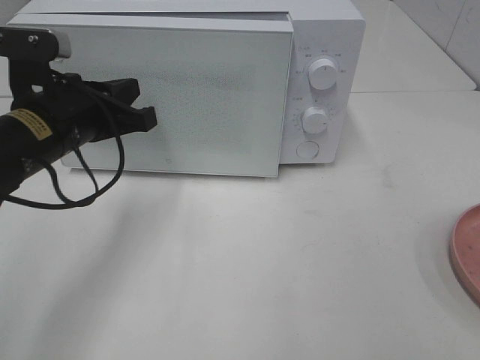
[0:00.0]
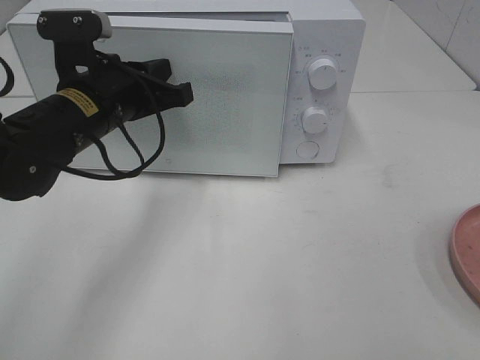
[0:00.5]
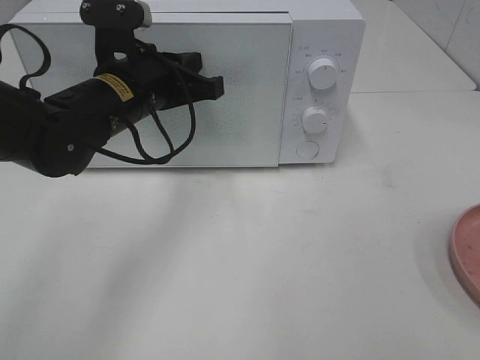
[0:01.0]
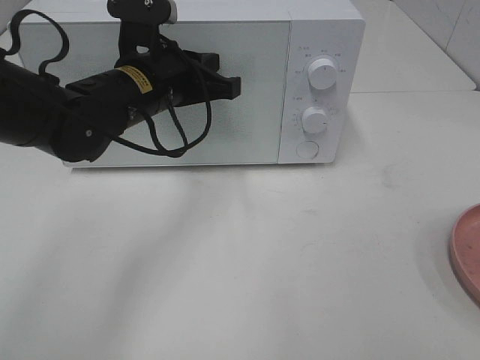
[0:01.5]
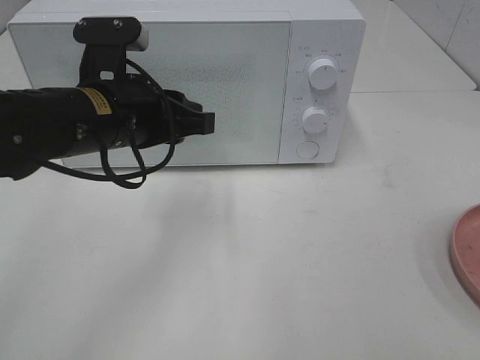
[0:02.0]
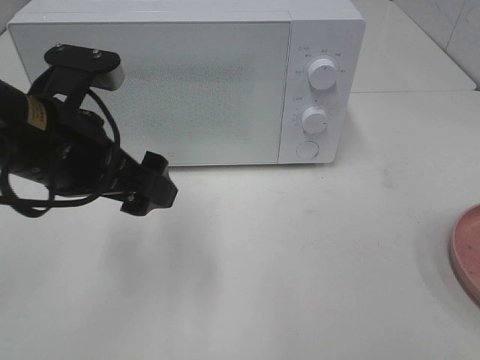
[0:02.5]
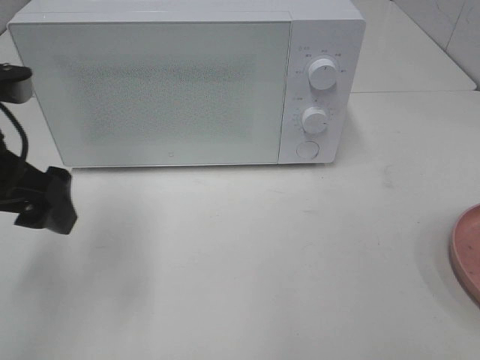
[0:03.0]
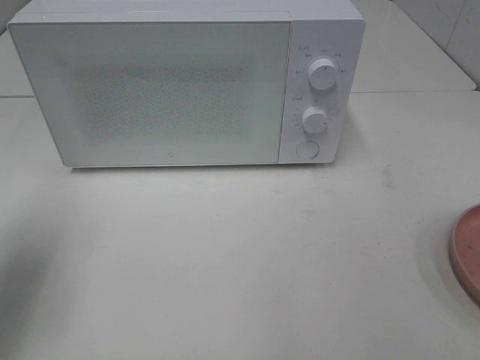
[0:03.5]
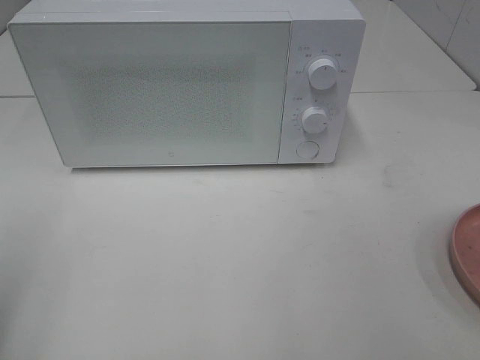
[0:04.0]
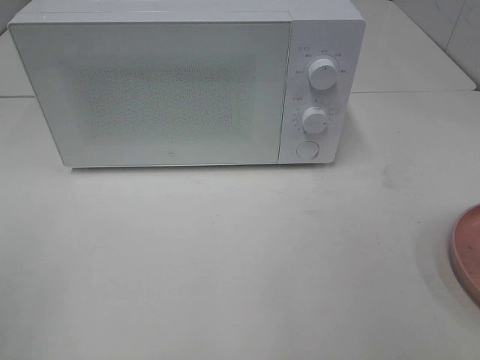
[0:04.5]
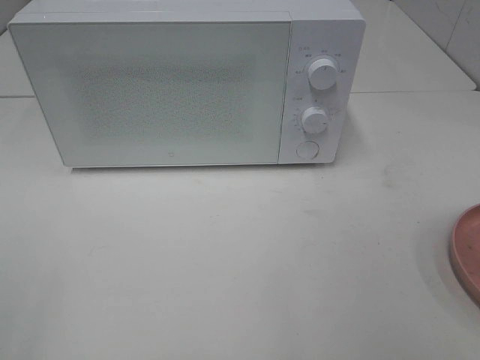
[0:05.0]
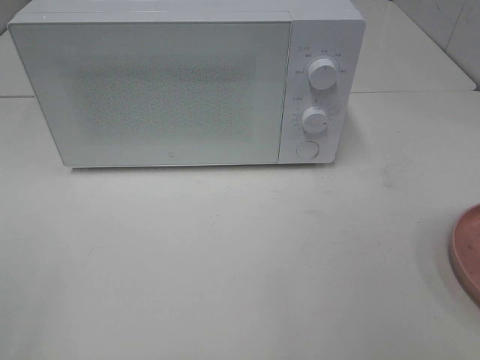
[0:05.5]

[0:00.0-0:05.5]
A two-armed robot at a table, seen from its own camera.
Task of the whole recording: Heat the burger.
Step, 0:00.0 to 0:02.0: Left hand: close the microwave door.
0:00.0 to 0:02.0: The left gripper travels to the right by about 5 cm, and opens.
0:02.0 to 0:03.5: The left gripper heads to the left and backward, covering roughly 20 cm, and opens.
0:03.5 to 0:05.5: The left gripper heads backward, covering approximately 20 cm.

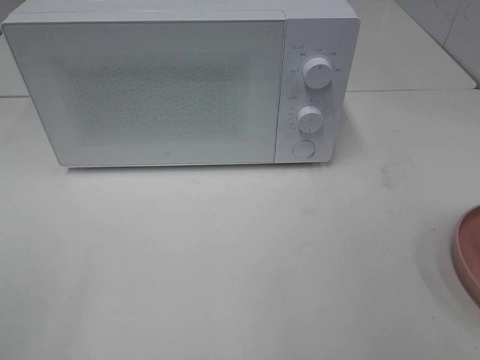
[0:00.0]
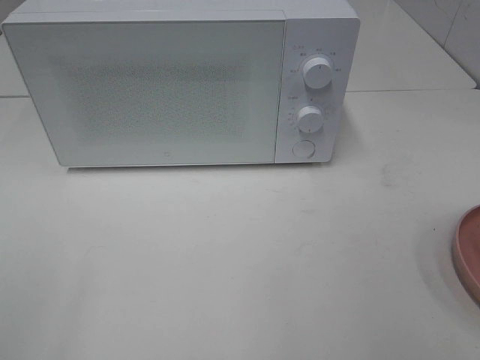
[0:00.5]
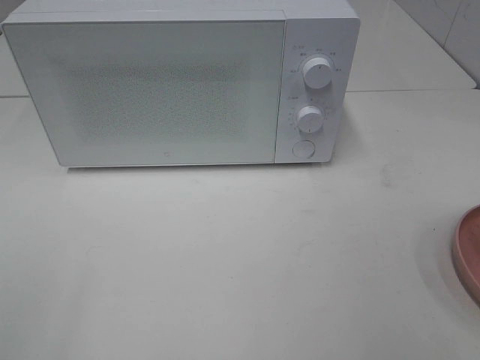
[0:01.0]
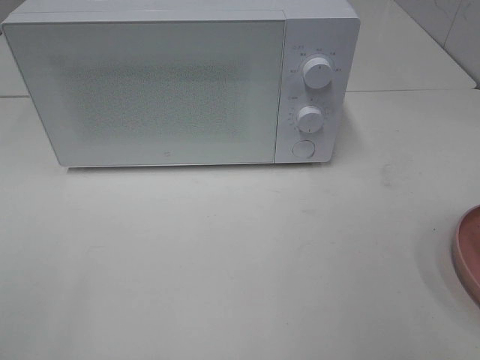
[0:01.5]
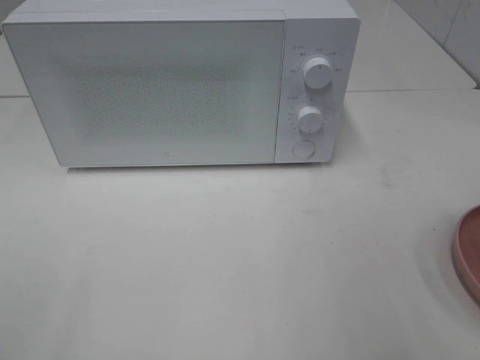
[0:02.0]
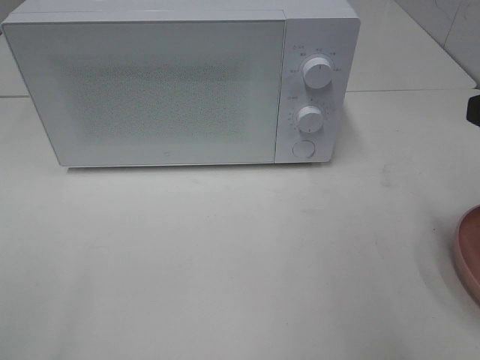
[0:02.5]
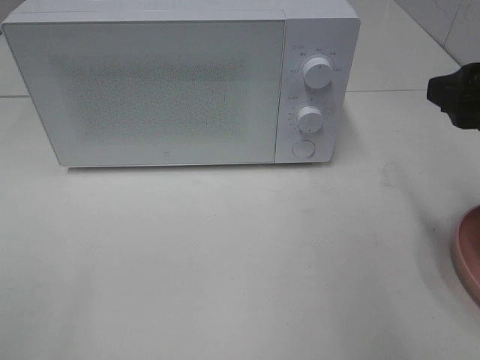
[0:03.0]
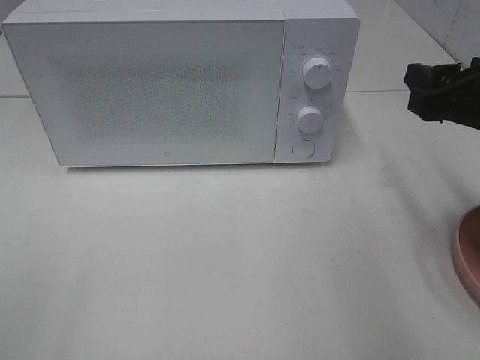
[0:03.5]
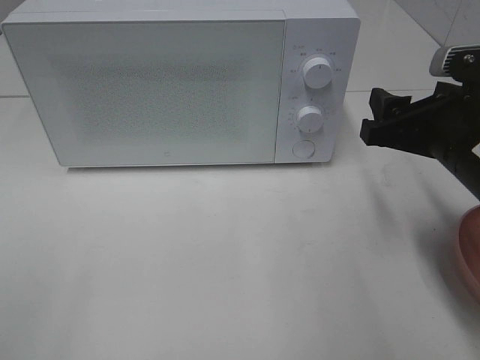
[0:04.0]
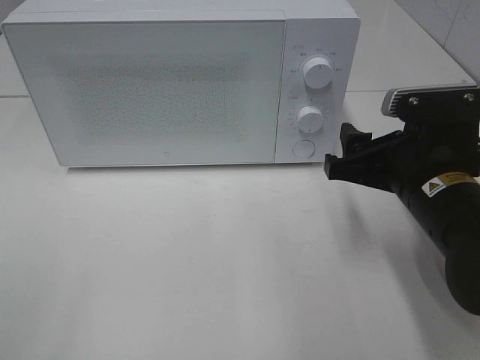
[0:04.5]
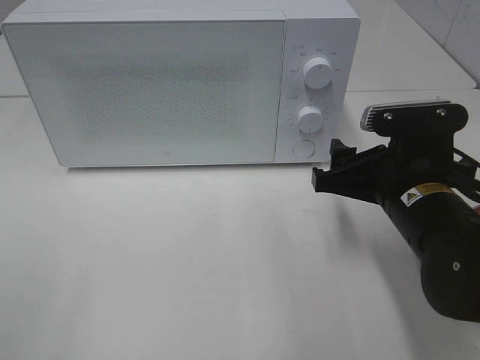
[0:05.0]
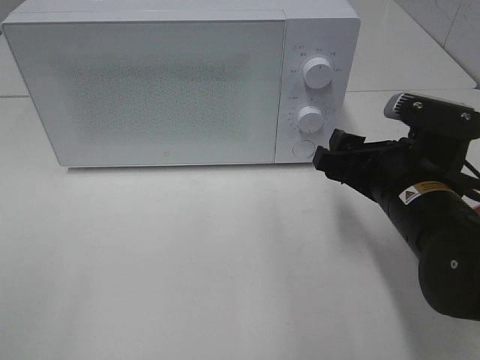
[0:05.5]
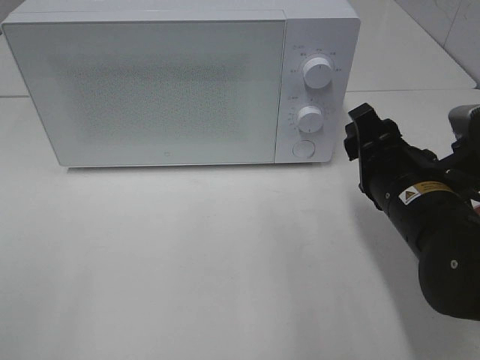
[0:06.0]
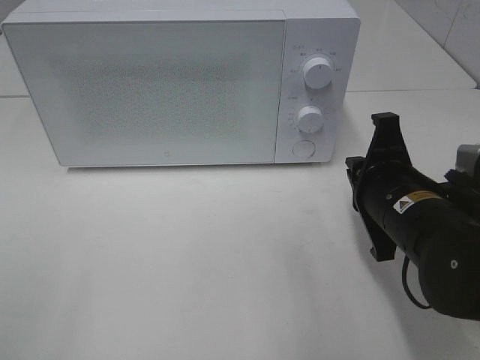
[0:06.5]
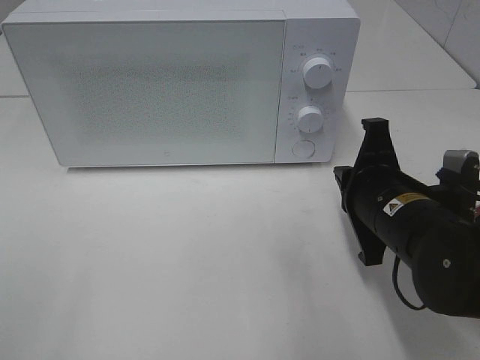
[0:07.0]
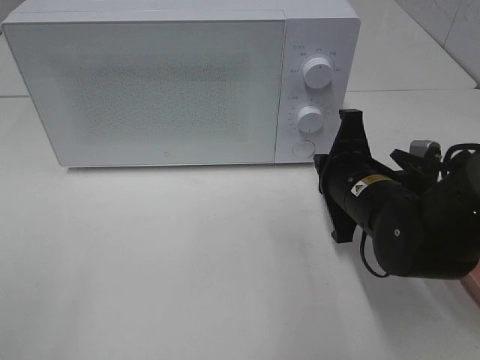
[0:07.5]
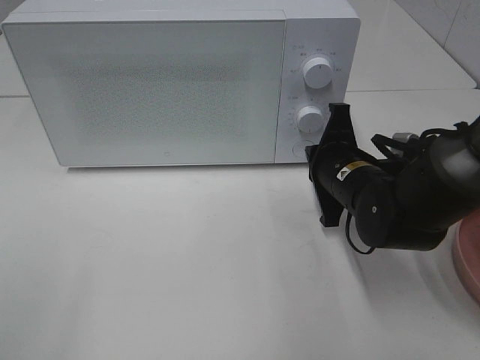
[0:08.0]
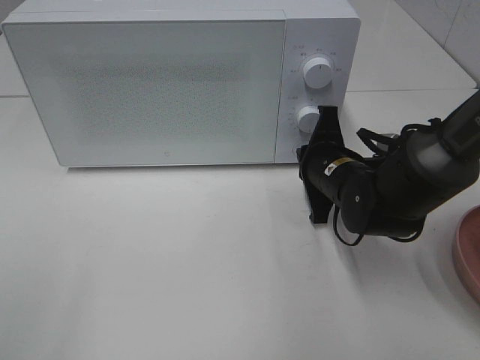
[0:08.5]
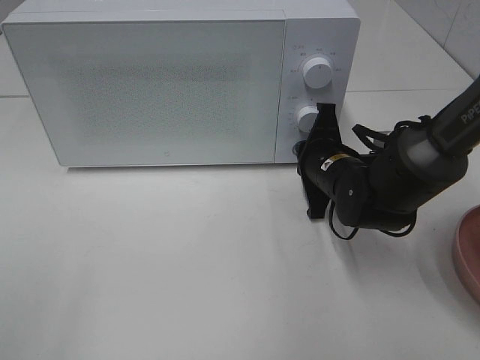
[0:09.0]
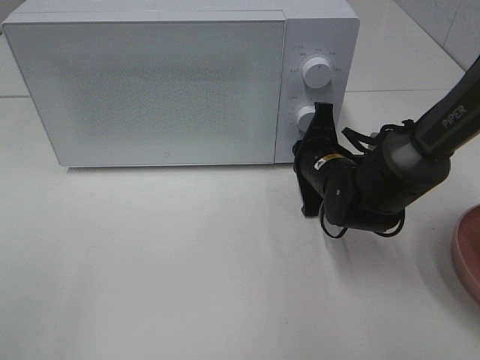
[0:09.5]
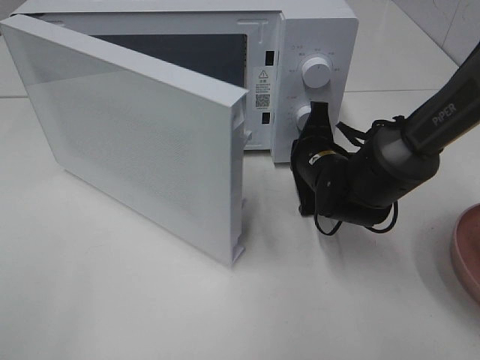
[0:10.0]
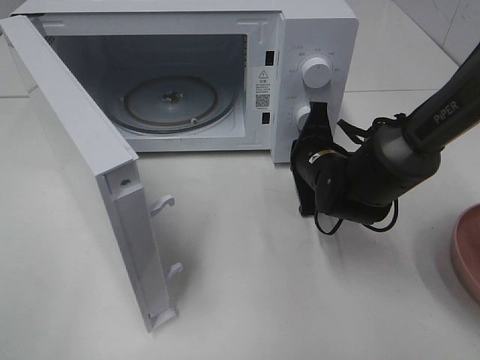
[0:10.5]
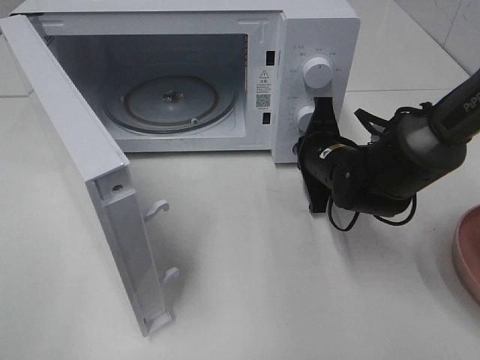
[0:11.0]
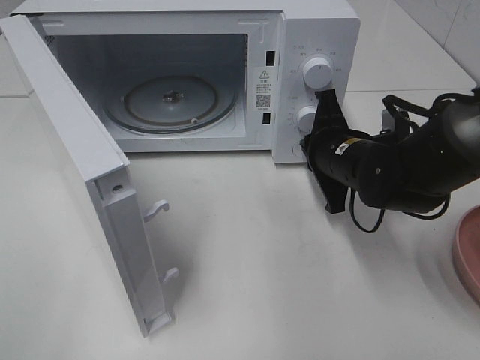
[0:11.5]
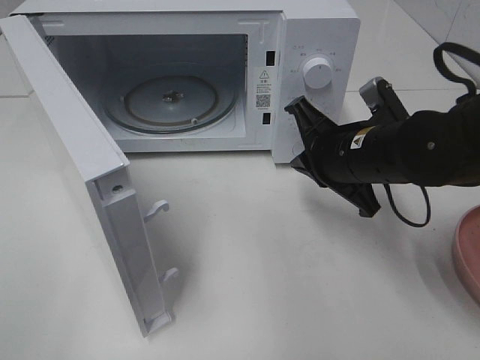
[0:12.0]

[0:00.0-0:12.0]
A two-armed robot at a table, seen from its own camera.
Task of the whole recording: Heat the burger.
Step, 0:00.0 to 0:11.5: Right hand: press the switch.
0:02.0 to 0:04.0: The right gripper moves forward, downward and to the left, some 15 cm.
0:04.0 to 0:06.0: The right gripper shifts by approximately 5 cm.
0:06.0 to 0:08.0: The right gripper is displaced forward and downward by roughly 10 cm, and closes its fingers.
0:08.0 to 0:10.0: The right gripper moves about 5 cm.
0:10.0 to 0:12.0: The right gripper heads upward and backward, covering roughly 10 cm.

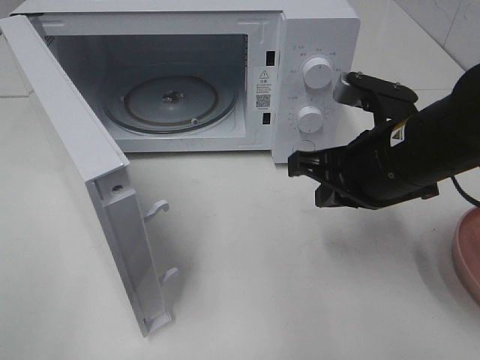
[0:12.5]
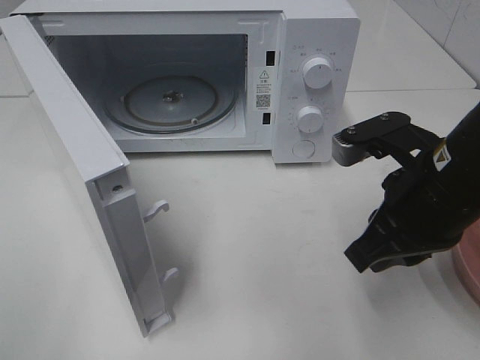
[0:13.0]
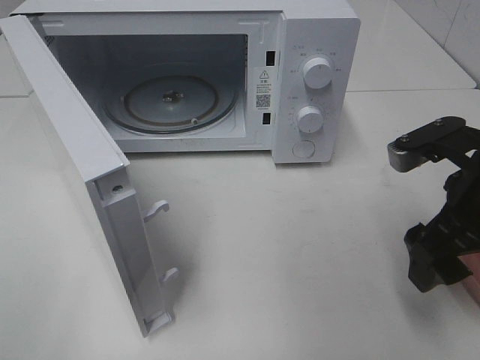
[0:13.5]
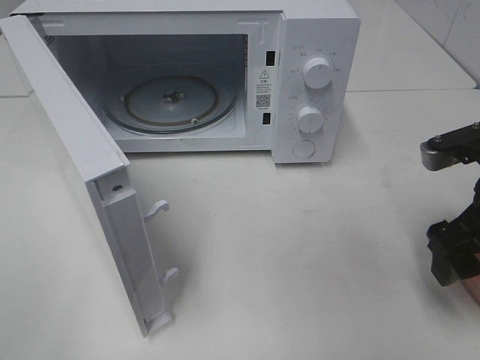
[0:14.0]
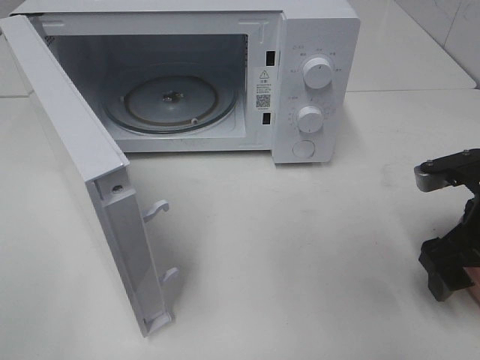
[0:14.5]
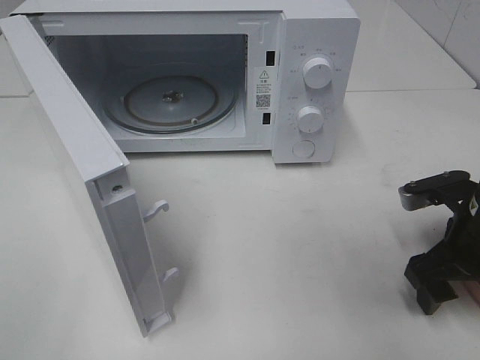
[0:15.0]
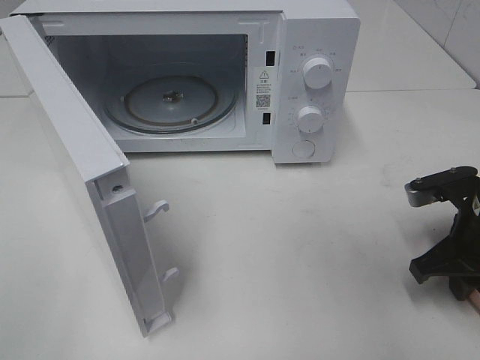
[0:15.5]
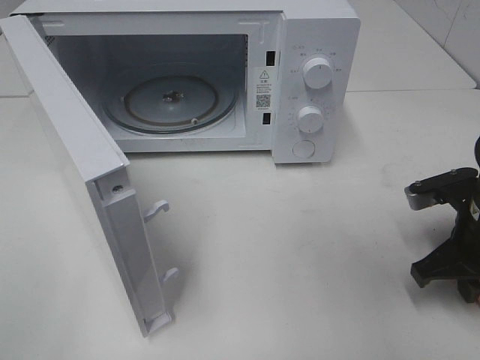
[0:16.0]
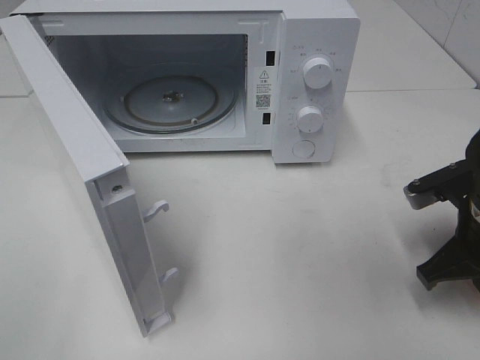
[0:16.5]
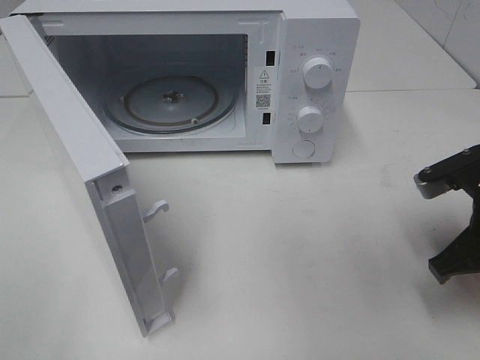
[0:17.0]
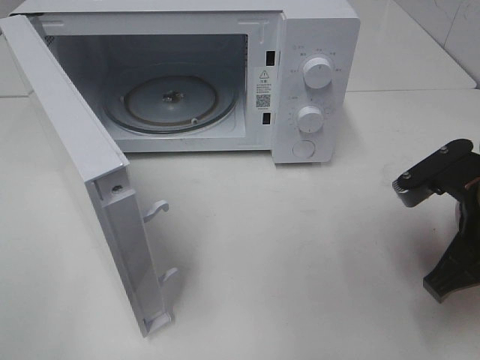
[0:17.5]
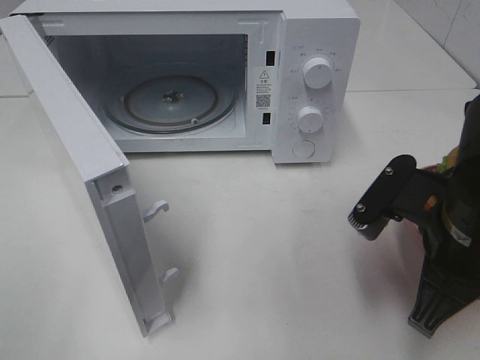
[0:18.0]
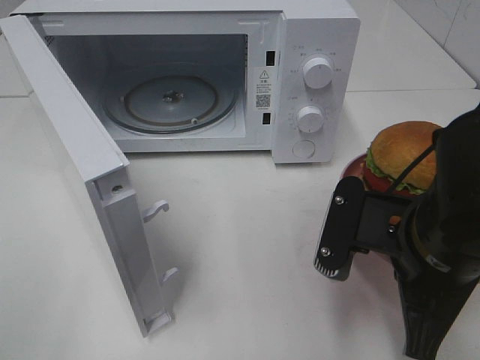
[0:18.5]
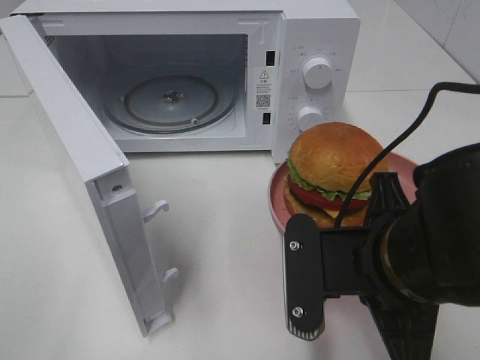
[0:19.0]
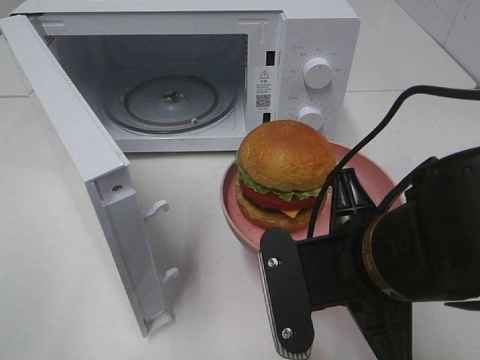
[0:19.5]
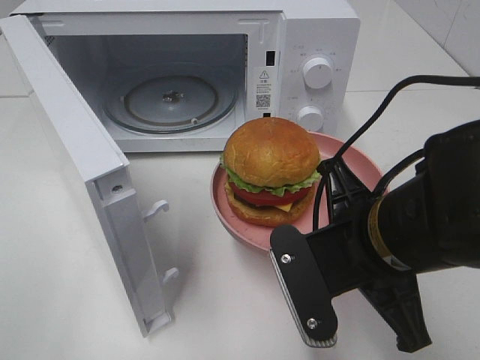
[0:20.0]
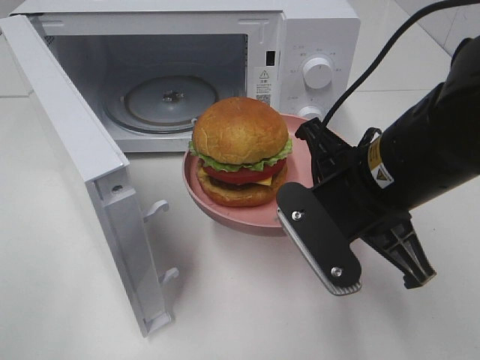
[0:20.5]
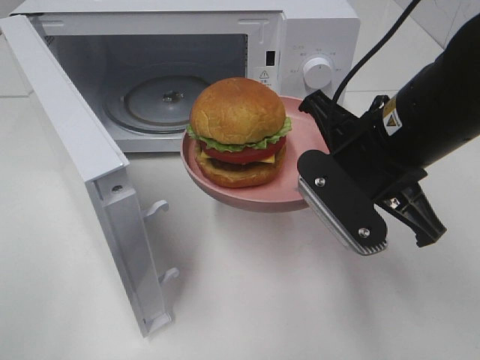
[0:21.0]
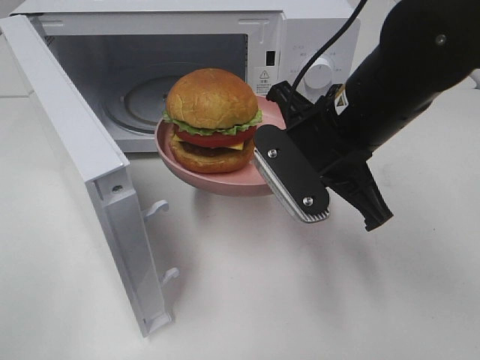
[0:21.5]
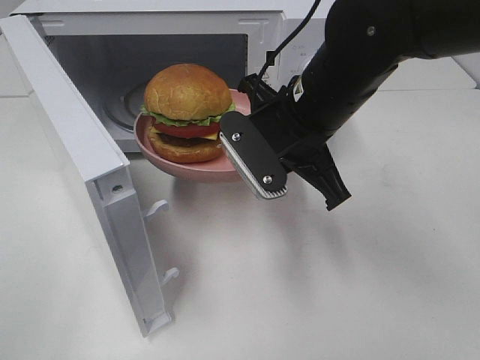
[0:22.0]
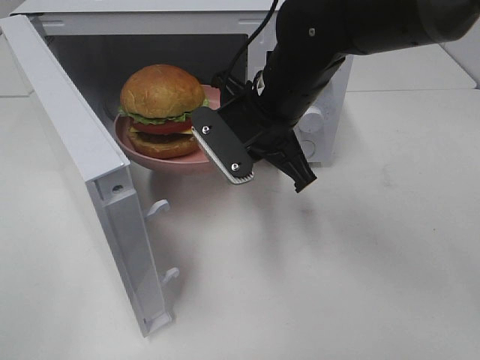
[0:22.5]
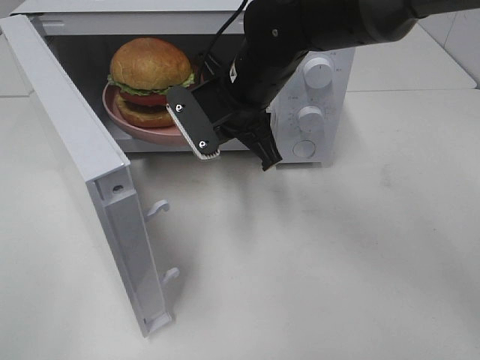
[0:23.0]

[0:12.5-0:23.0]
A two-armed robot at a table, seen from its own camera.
Task of the whole recording: Heat the burger.
Step, 0:12.5 to 0:16.5: Right hand: grab the plate with the hamburger.
0:12.5 to 0:14.5: The right gripper goes approximately 10 cm to the right, and opens up.
0:14.5 to 0:16.5: The right gripper closes.
0:16.5 to 0:19.0: The right gripper goes roughly 15 cm to the left and backward.
0:19.0 to 0:21.0: The right gripper moves forward, about 10 cm.
0:21.0 to 0:23.0: The right gripper shifts about 15 cm forward and to the left.
